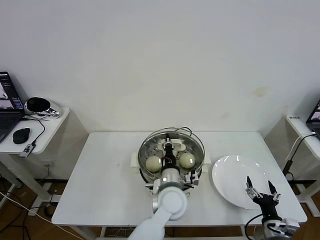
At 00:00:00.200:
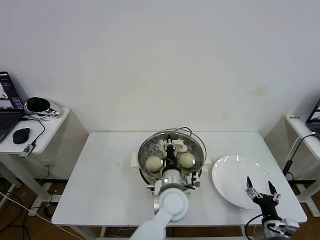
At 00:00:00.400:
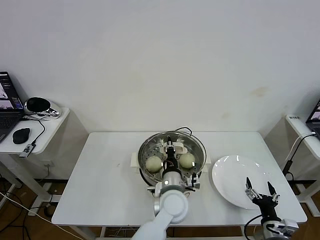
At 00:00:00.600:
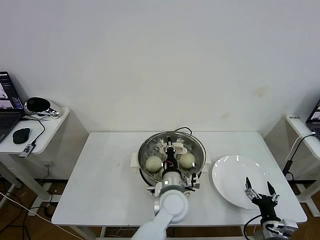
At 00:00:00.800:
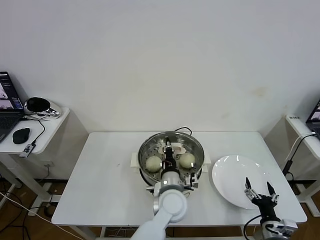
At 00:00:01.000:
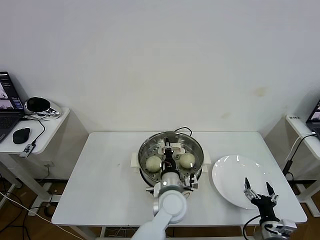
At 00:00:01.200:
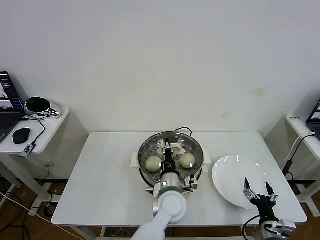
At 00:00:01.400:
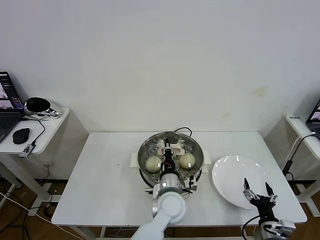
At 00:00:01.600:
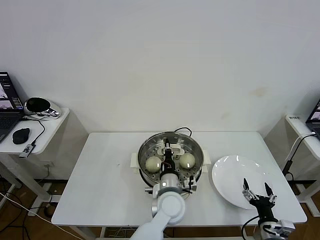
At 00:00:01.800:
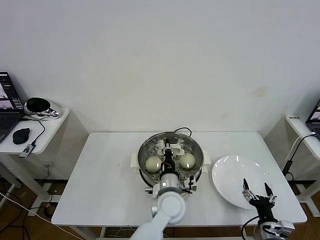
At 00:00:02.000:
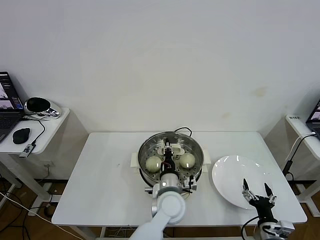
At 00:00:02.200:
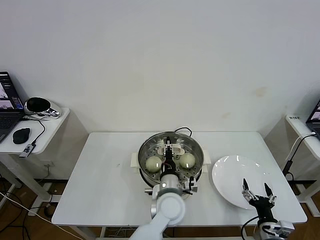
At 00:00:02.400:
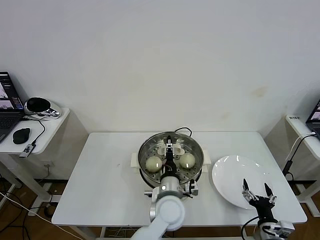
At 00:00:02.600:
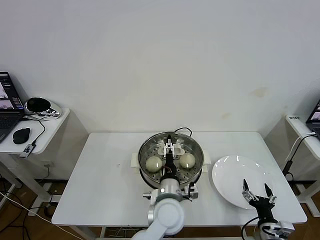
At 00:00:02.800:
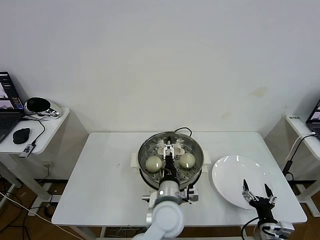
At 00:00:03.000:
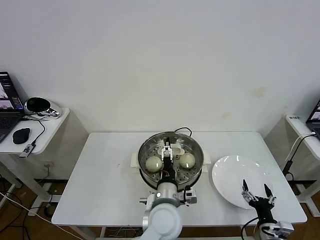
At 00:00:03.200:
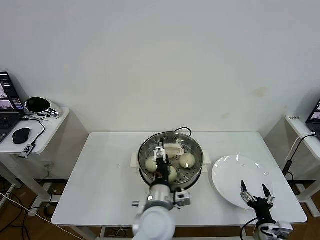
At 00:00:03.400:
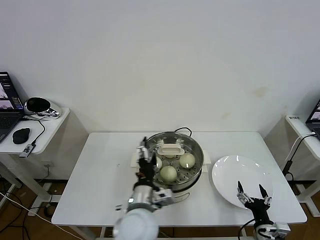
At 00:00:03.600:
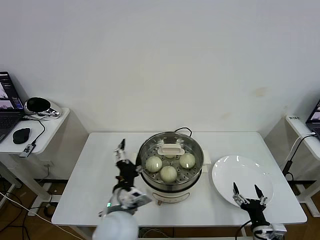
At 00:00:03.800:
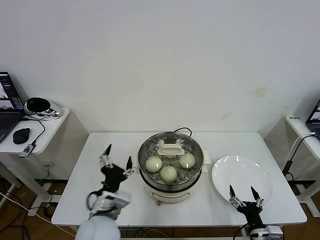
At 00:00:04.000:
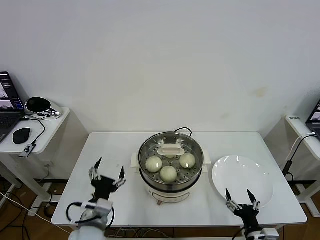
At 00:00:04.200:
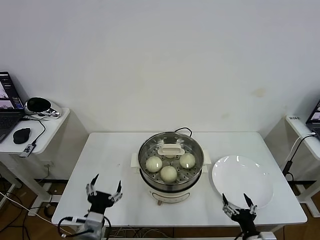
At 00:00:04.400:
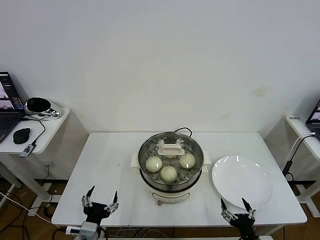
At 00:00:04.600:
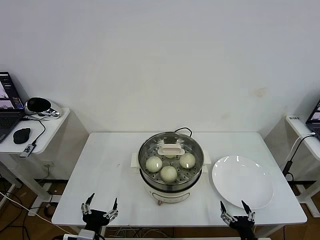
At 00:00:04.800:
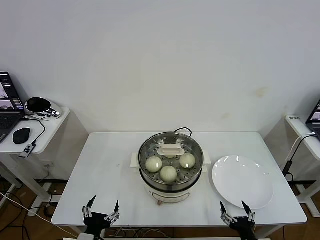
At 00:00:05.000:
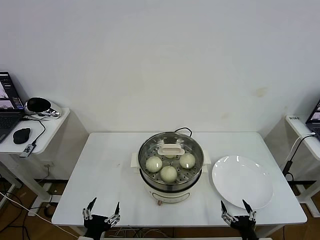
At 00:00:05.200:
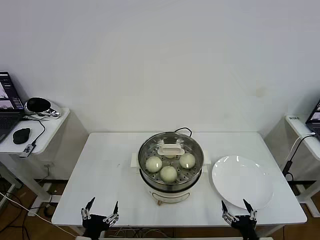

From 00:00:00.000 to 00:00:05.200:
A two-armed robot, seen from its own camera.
Task of the whole recording: take steamed baozi put them in steamer then cover it.
Step, from 00:00:00.000 to 00:00:02.800: Place the pot lid on the steamer with left gripper.
From 00:00:00.000 to 00:00:01.800: There are only small adjustments of the grippers.
From 00:00:01.800 to 00:00:03.400: The left gripper travels backward, to the left and upward by approximately 10 cm, and opens.
From 00:00:03.400 to 00:00:05.200: The left gripper moves to the left, backward and downward, about 25 cm, while the right gripper shifts approximately 5 cm backward.
